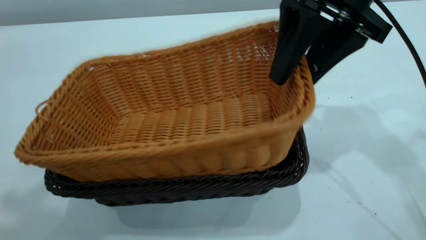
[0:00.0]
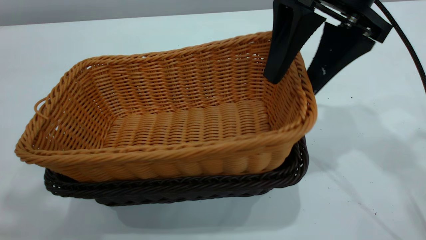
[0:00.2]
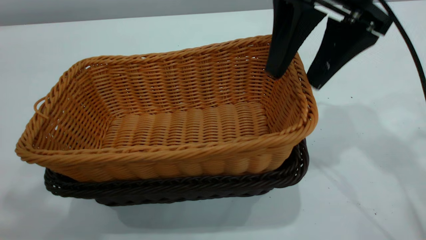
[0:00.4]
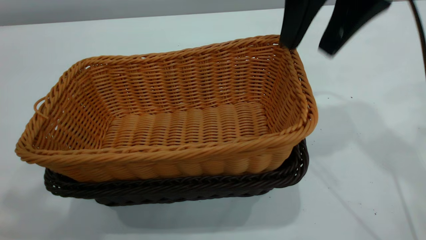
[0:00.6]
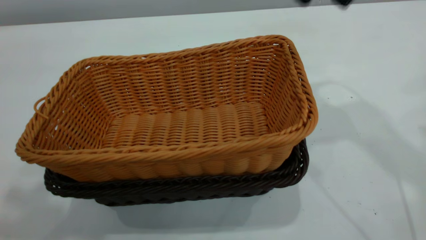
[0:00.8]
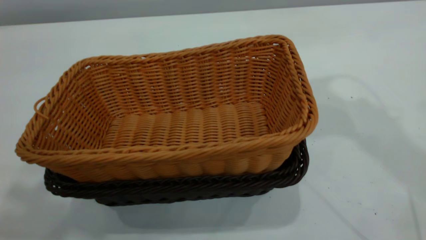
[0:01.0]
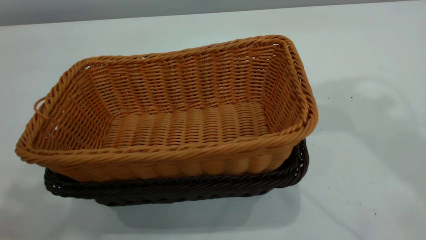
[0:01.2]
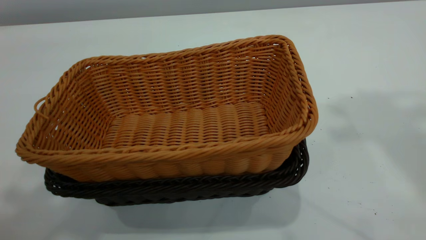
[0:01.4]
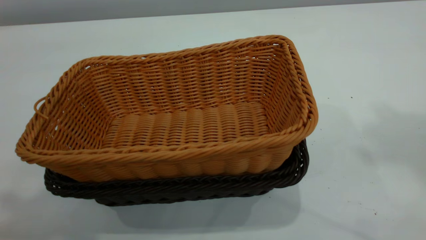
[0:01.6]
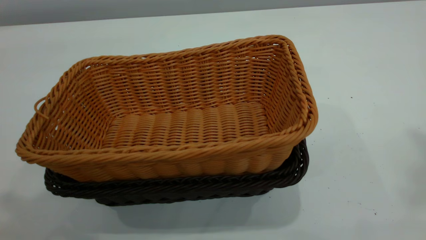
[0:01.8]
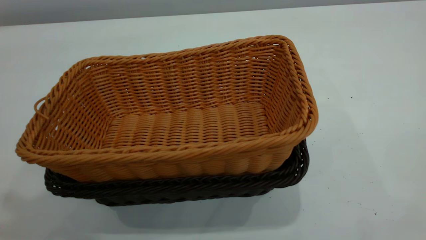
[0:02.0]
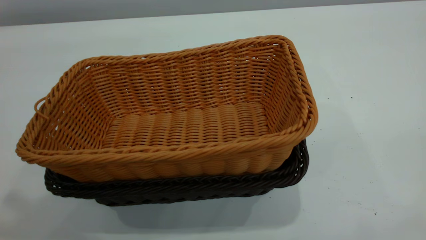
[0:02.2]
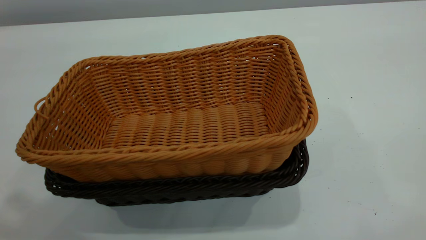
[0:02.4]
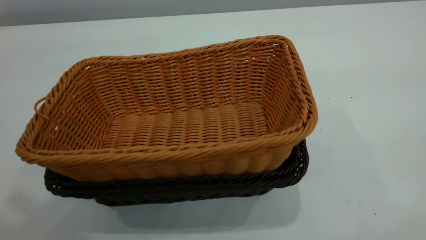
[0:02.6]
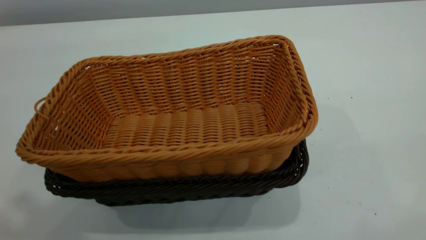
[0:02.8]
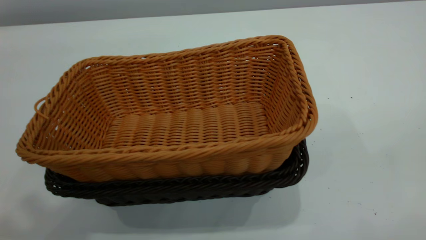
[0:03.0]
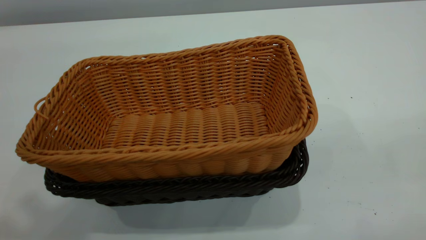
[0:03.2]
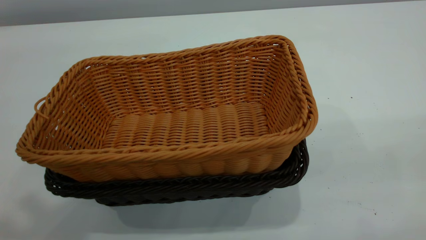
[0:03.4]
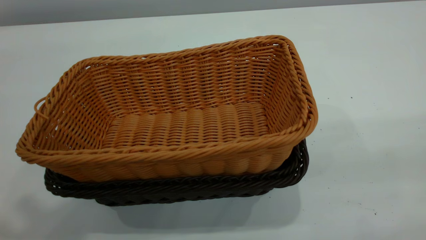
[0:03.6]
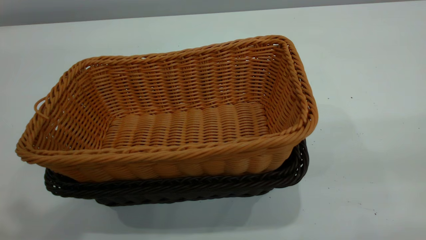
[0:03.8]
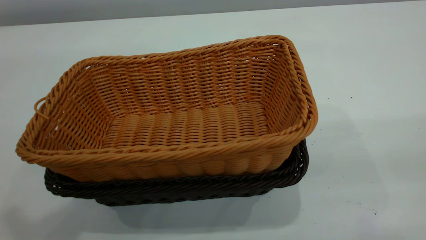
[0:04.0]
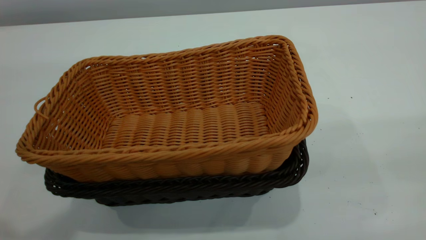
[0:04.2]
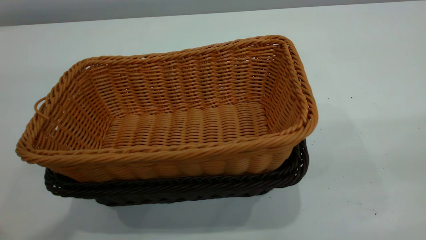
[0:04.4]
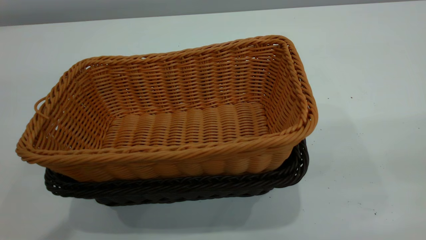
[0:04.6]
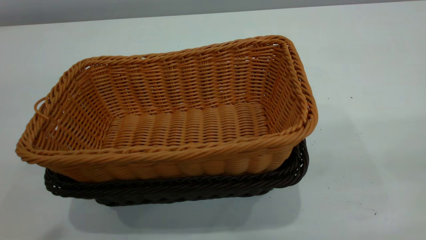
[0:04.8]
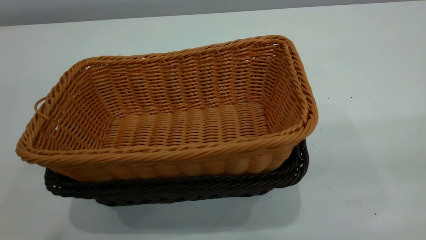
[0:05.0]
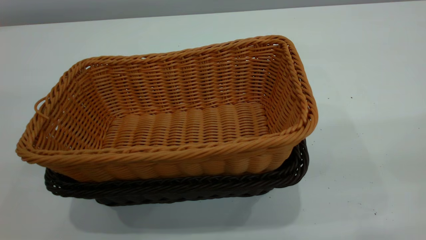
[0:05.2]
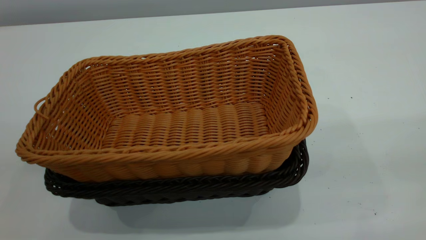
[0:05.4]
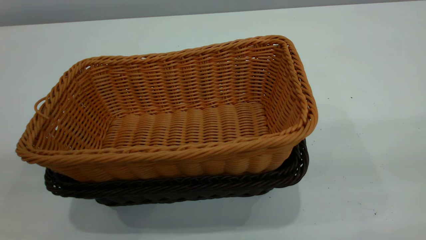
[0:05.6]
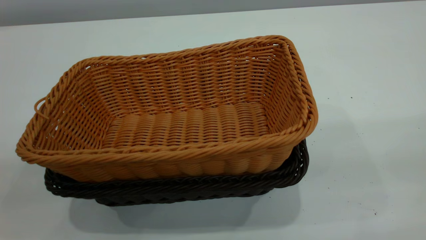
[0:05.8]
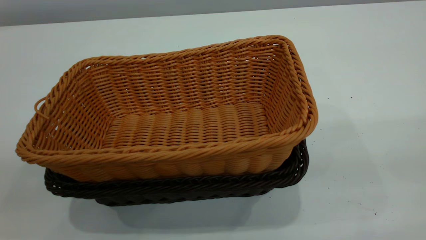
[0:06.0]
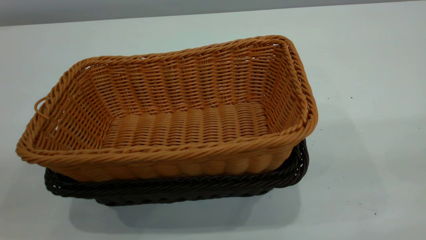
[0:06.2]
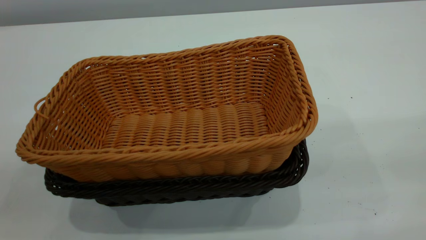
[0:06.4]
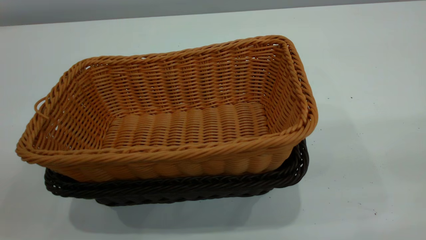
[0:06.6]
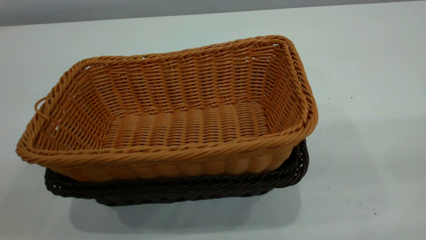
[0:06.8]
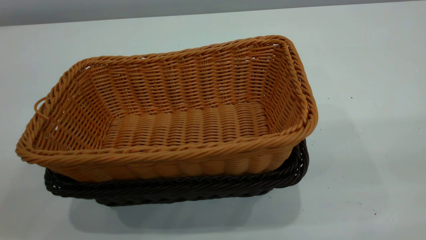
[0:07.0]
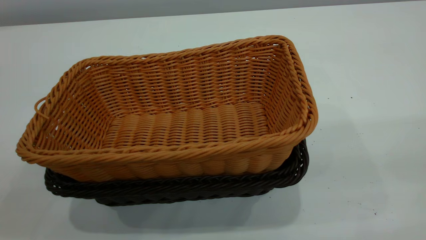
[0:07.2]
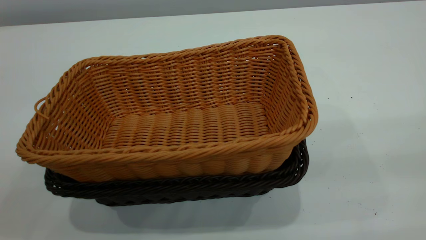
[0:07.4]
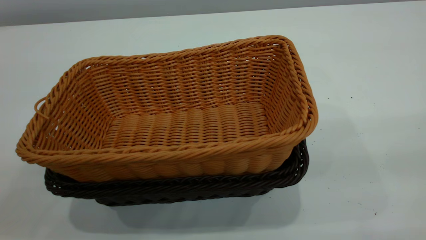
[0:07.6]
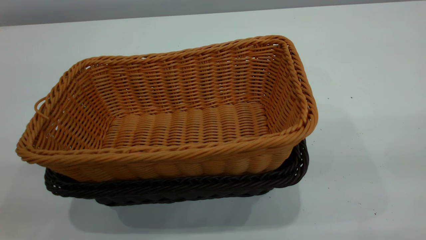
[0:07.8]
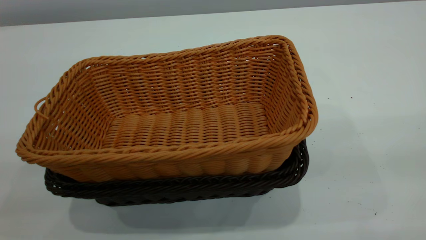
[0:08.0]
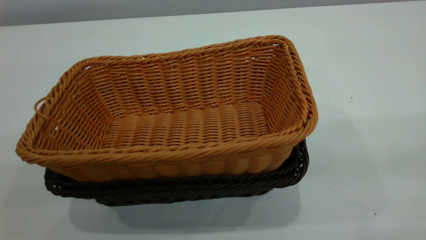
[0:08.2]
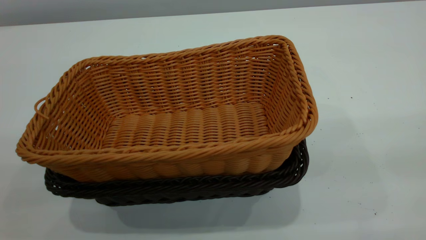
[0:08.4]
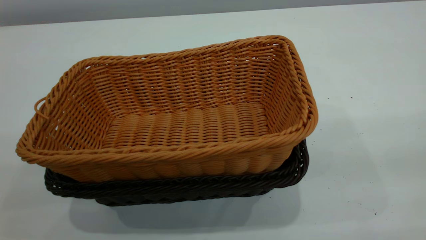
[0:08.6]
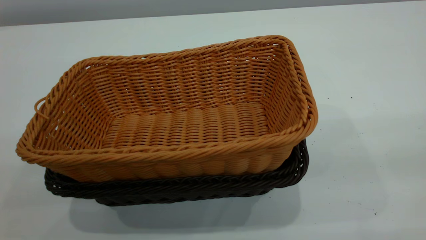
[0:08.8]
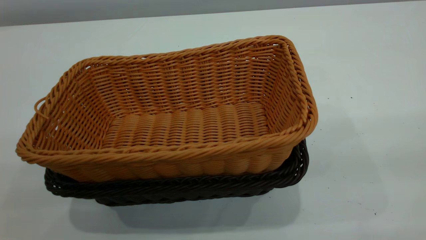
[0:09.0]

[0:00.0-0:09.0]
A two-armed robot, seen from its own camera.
Task of the whole recording: the left gripper grasp the black basket and place it in the center of the table, the right gripper grasp the brown basket and place it inside the black one.
0:00.0 to 0:01.6: The right gripper travels upward by roughly 30 cm, and closes its fingers. Meanwhile the left gripper closes its fingers.
